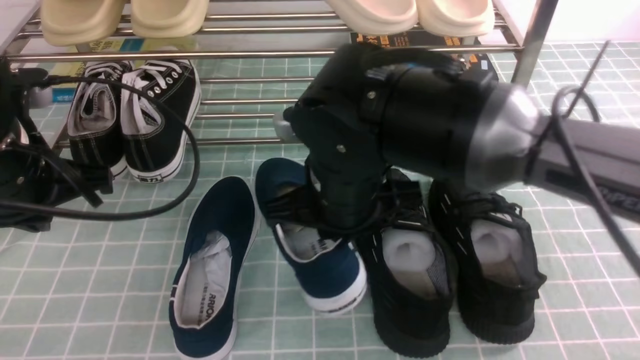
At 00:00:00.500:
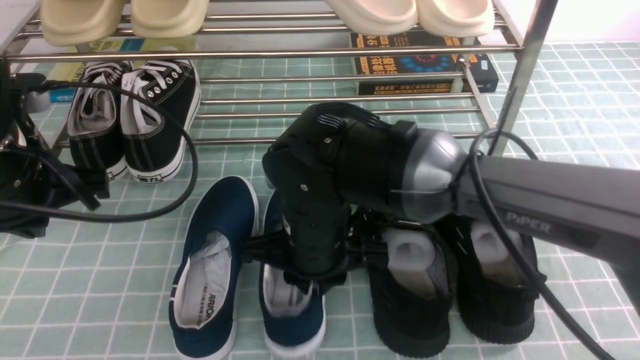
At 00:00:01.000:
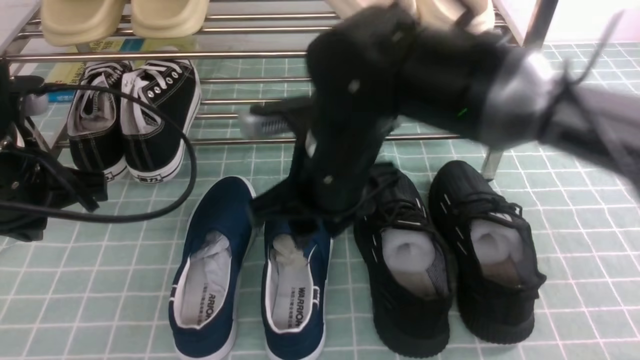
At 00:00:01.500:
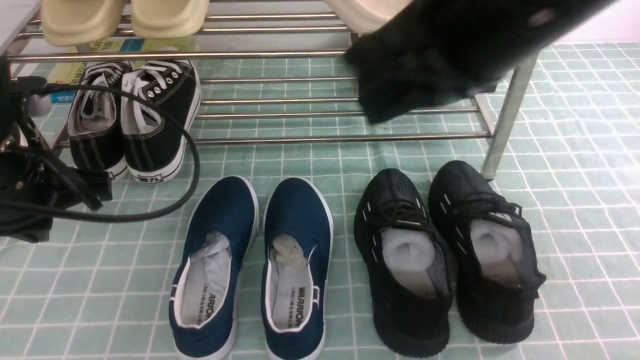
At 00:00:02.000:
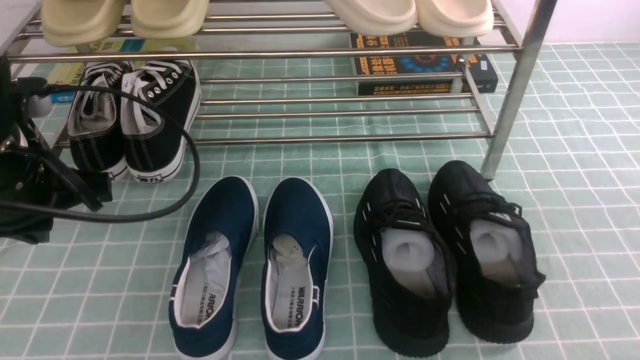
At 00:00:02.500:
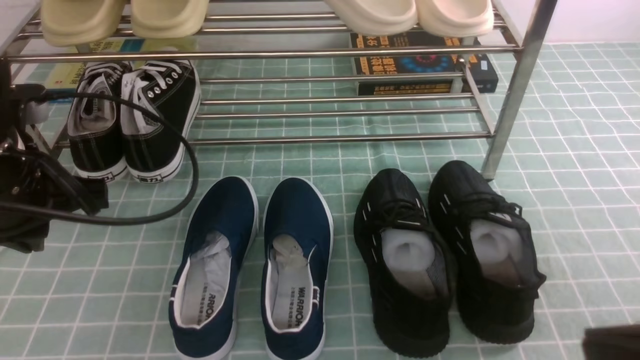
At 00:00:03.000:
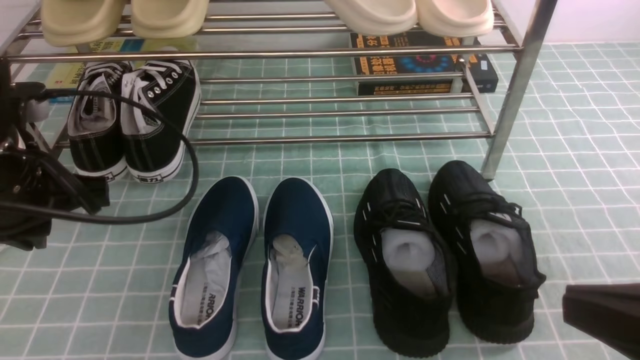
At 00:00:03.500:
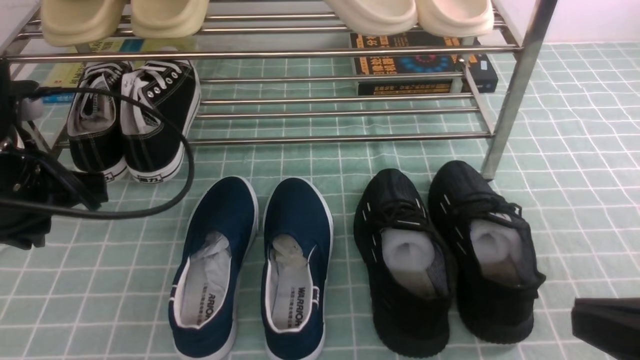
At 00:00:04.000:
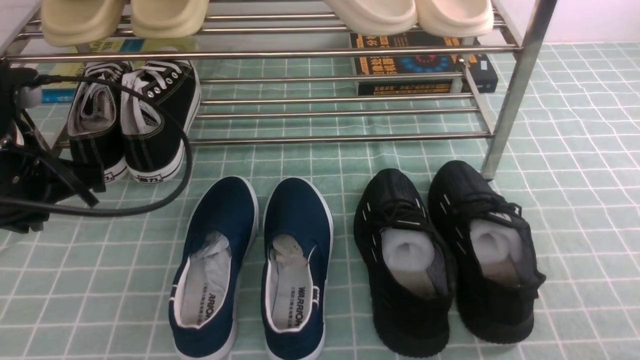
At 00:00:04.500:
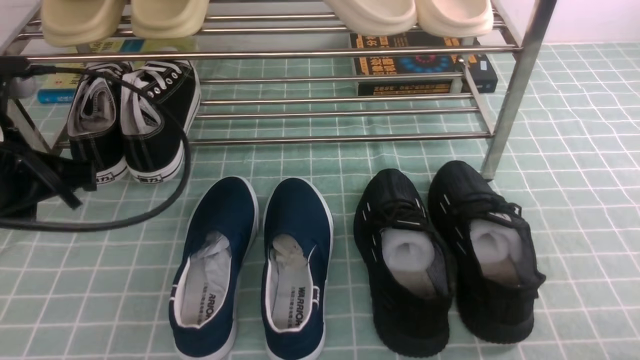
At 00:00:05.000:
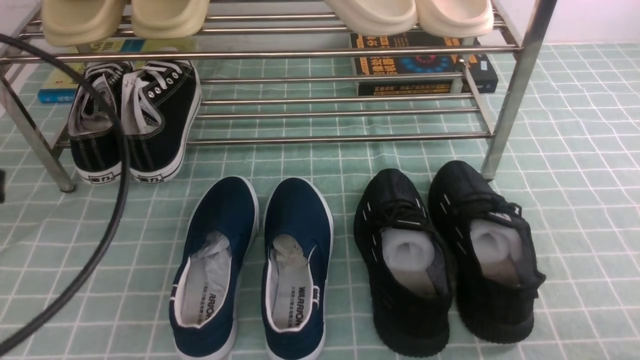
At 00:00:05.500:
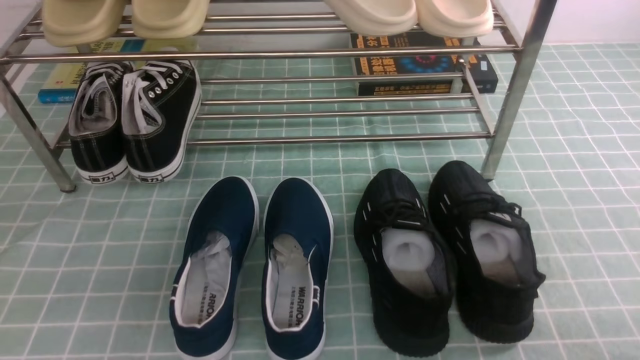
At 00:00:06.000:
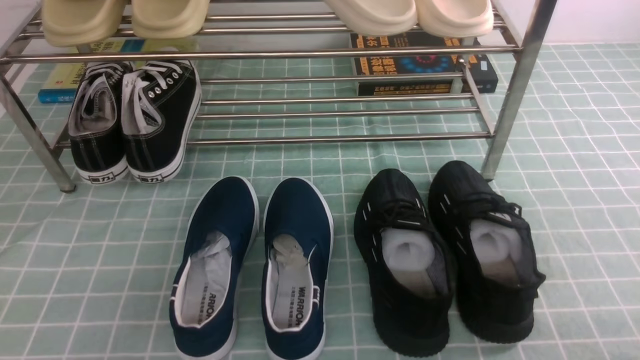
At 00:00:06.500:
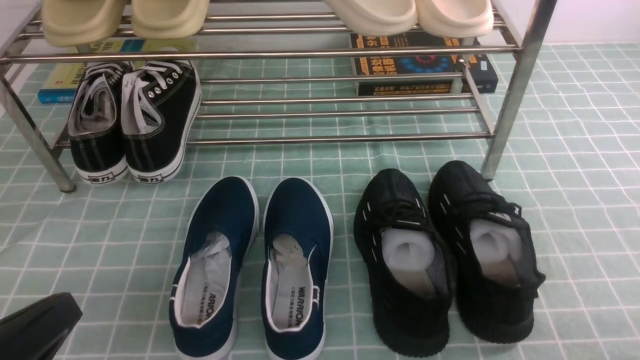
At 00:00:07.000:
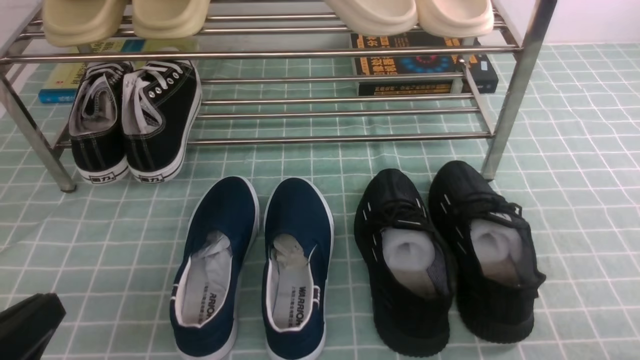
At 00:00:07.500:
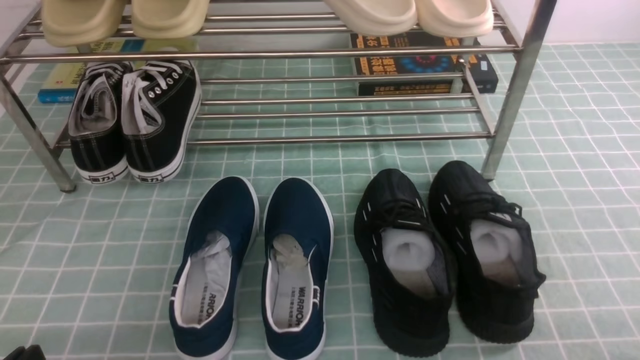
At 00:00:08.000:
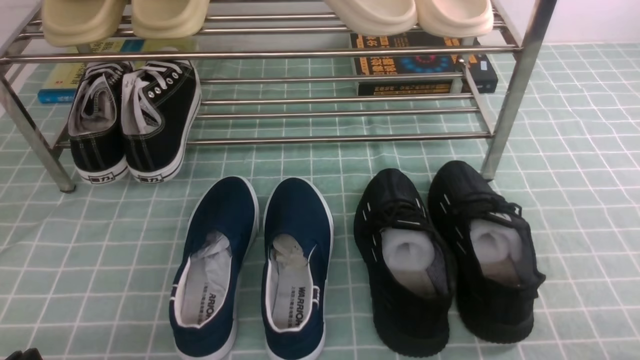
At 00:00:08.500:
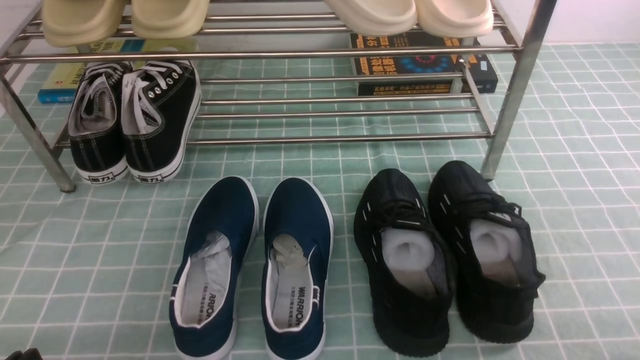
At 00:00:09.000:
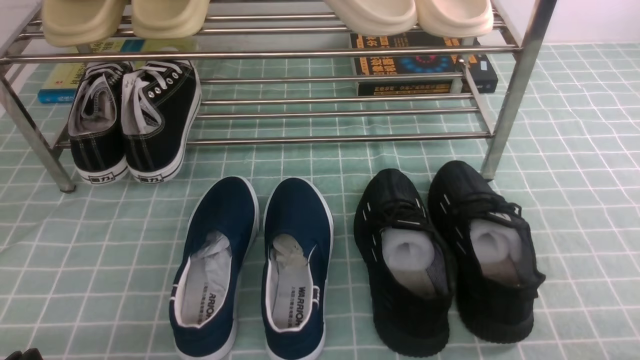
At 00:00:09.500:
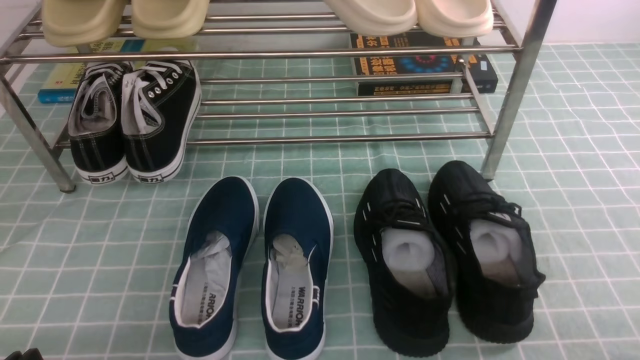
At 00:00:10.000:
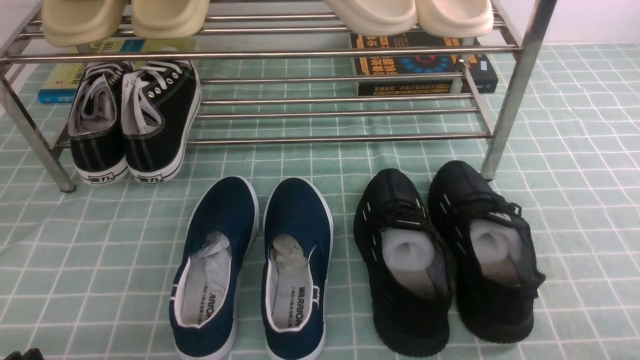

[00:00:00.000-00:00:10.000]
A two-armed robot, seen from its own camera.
00:00:00.000 to 00:00:02.000: The right gripper shifts some 40 cm to the right, upward and backward, and opens, then closes once more.
00:00:04.000 to 00:00:06.000: The left gripper shifts roughly 25 cm backward.
00:00:08.000 to 00:00:10.000: Both grippers stay put.

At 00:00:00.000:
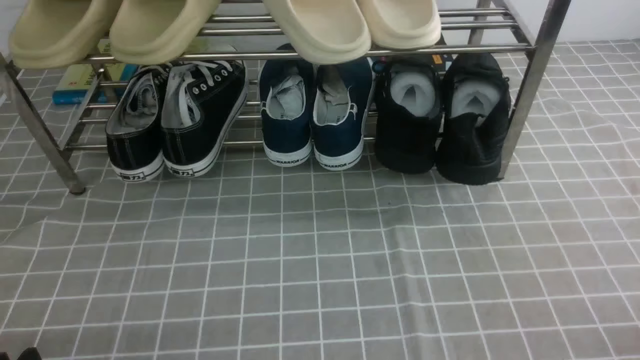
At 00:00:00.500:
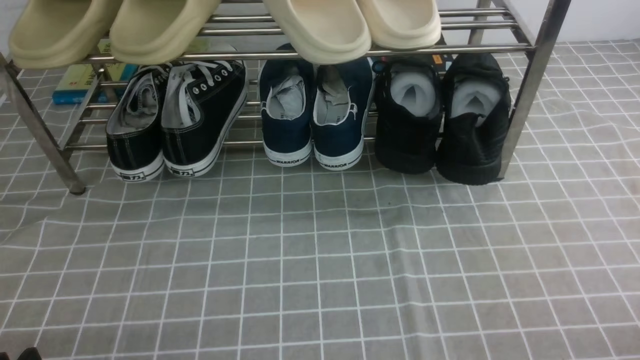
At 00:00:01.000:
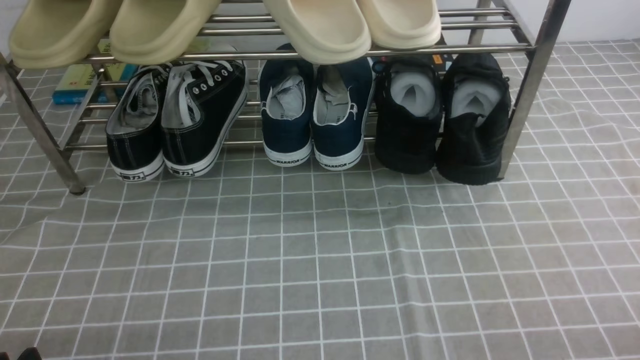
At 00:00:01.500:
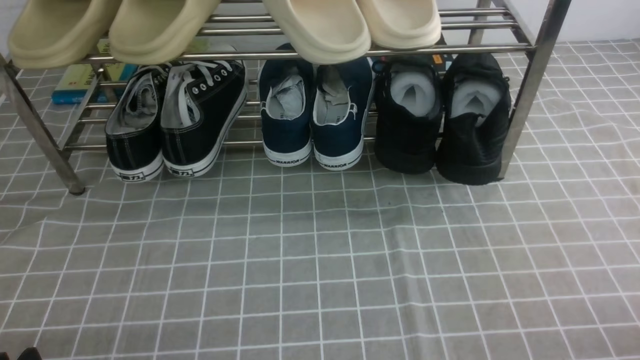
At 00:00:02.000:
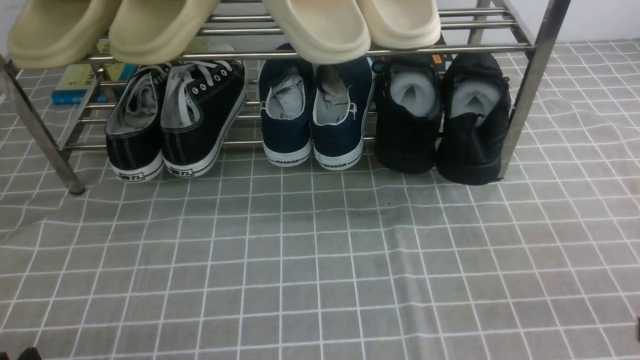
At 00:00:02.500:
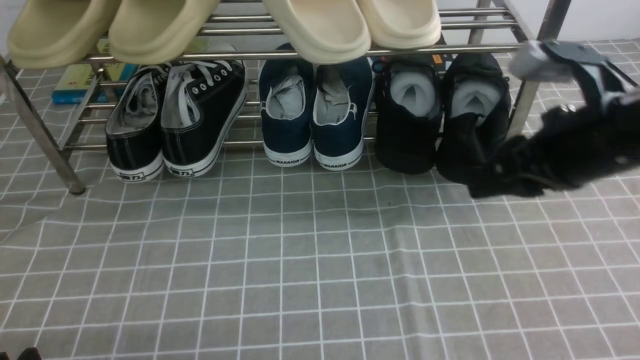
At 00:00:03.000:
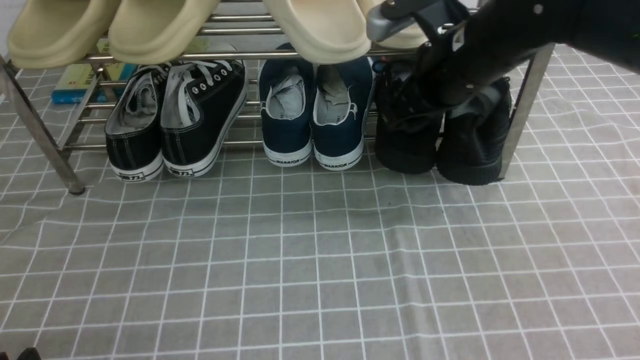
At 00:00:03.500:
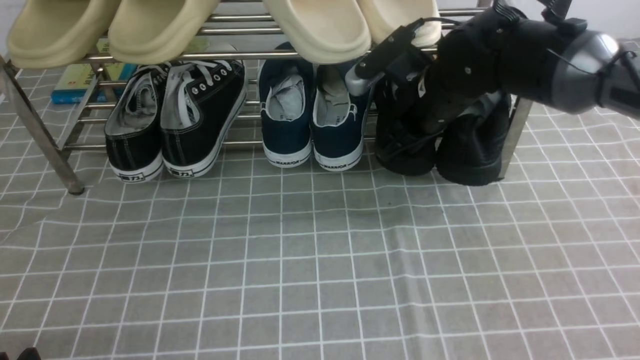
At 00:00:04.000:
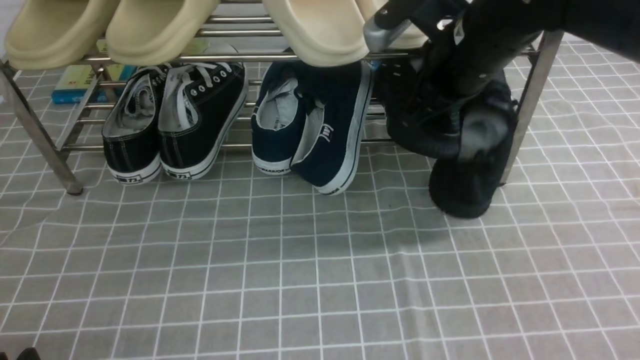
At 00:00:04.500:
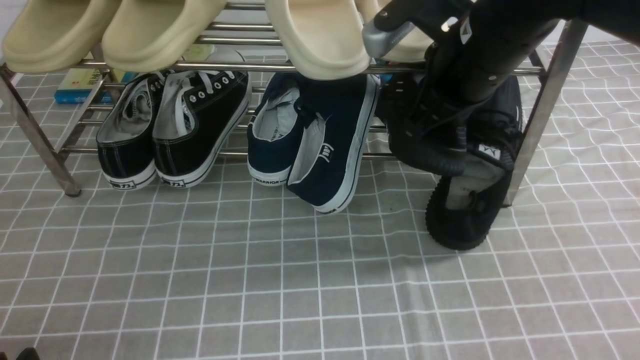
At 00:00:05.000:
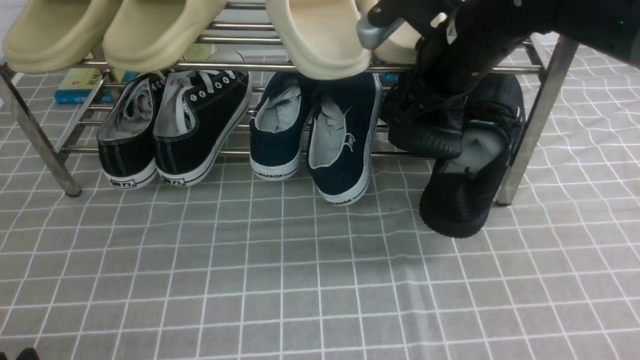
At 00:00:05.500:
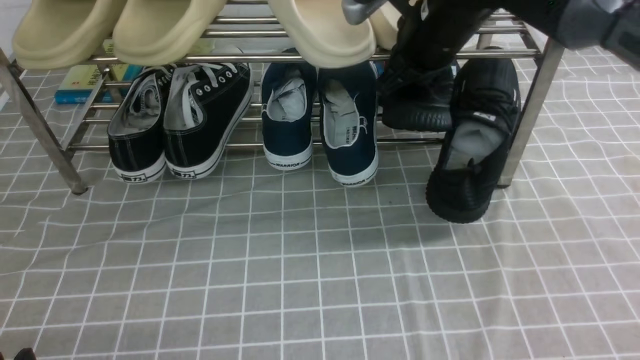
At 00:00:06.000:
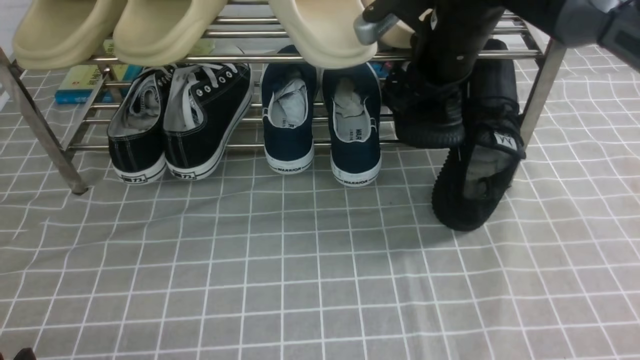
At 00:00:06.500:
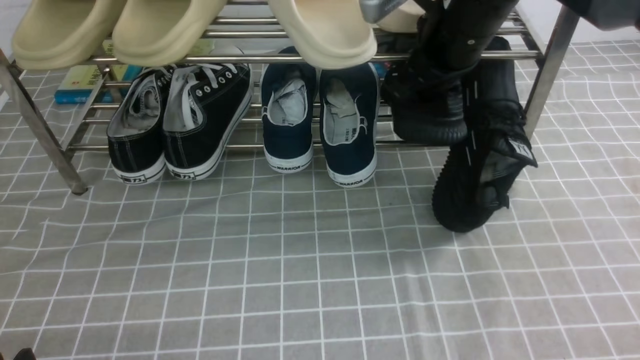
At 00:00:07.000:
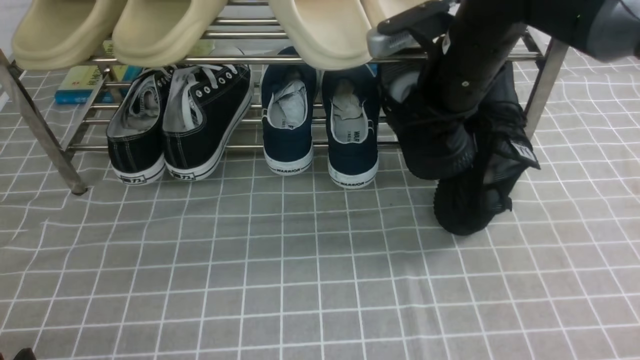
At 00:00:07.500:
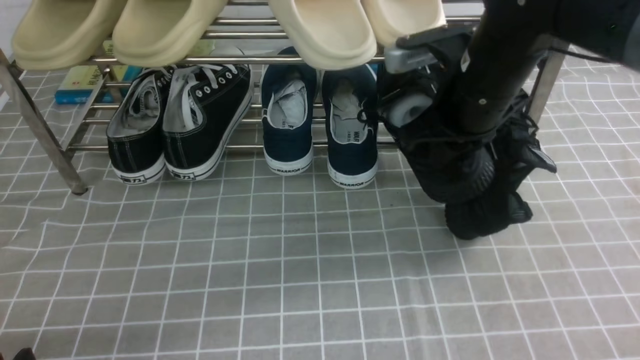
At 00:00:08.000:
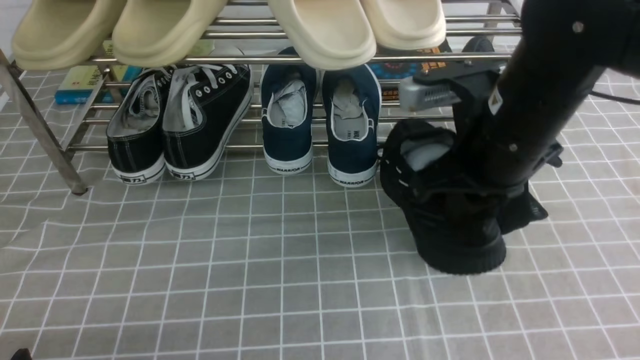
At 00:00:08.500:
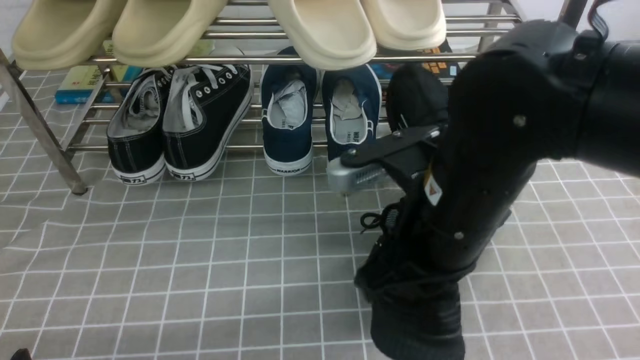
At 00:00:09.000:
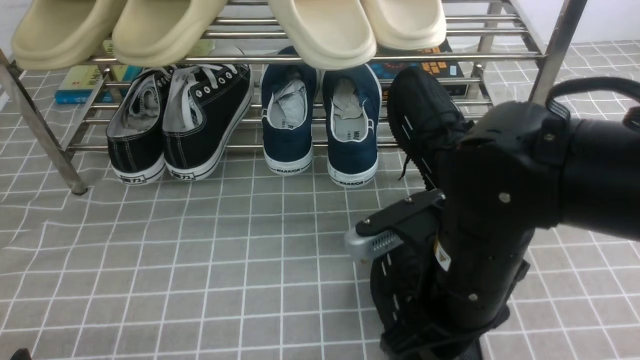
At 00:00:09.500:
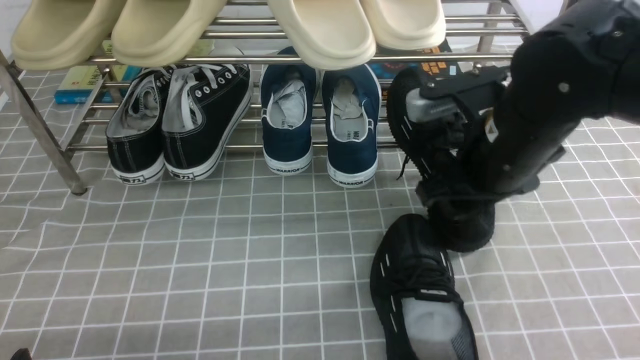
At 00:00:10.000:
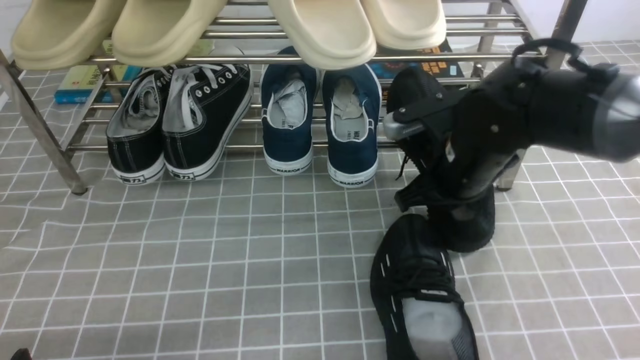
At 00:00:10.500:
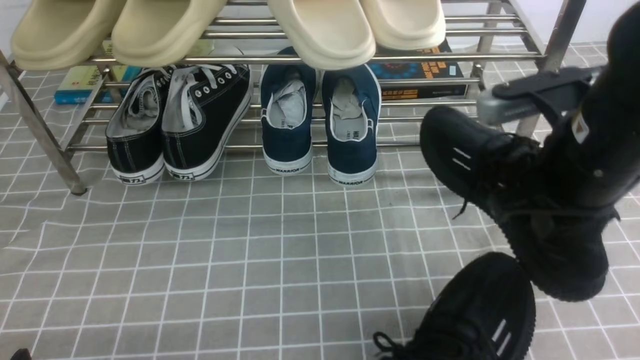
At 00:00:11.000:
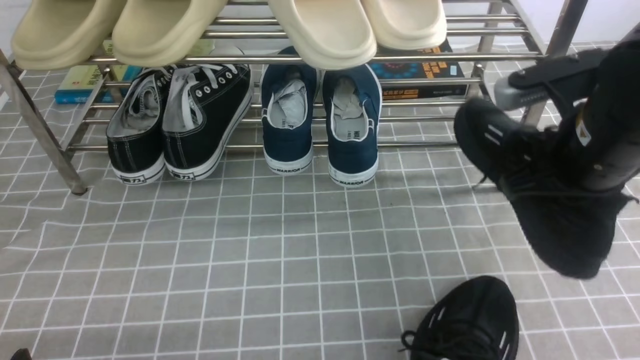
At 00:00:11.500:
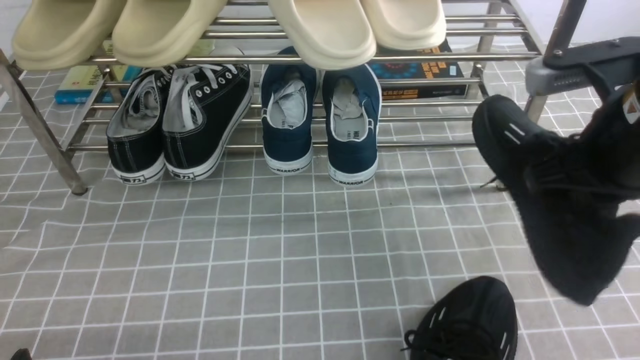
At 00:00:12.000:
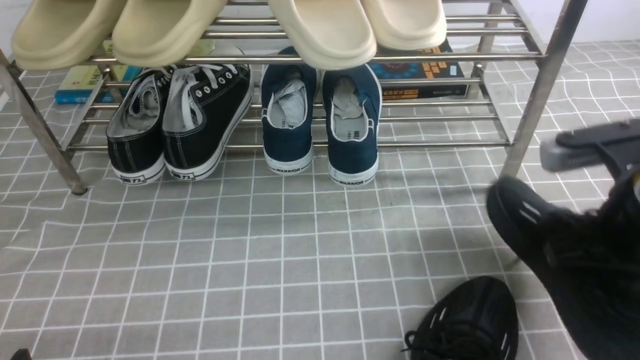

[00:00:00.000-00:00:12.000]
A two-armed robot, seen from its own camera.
Step, 00:00:00.000 to 00:00:03.500: use the right arm to clamp a shoe on the right side of the shoe rack.
Step, 00:00:04.000 to 00:00:09.000: use the right arm to take out the clamped shoe from the shoe rack and put it down.
Step, 00:00:09.500 to 00:00:10.000: use the right arm to clamp a shoe on the right side of the shoe rack.
00:00:02.000 to 00:00:04.000: The right gripper goes about 35 cm forward and to the left, and opens, then closes again.
00:00:06.000 to 00:00:08.000: The right gripper is displaced backward by approximately 10 cm.
00:00:08.000 to 00:00:10.000: The right gripper moves downward, some 10 cm, reaches about 10 cm backward, then returns, and opens, then closes again.
00:00:10.000 to 00:00:12.000: The right gripper travels backward, to the right and upward by roughly 15 cm.
